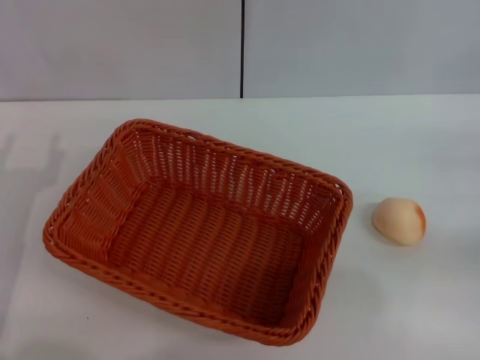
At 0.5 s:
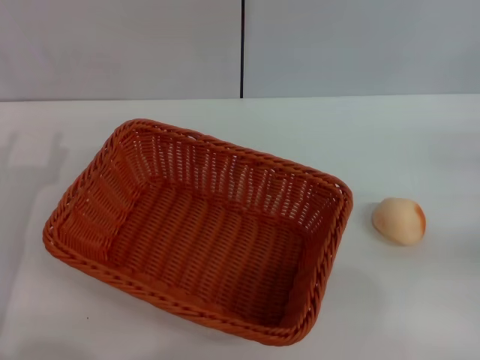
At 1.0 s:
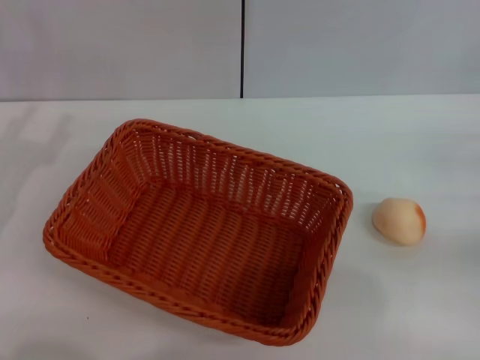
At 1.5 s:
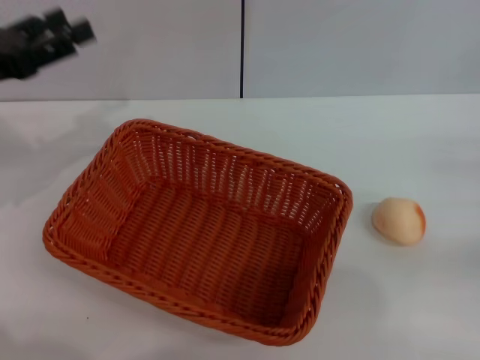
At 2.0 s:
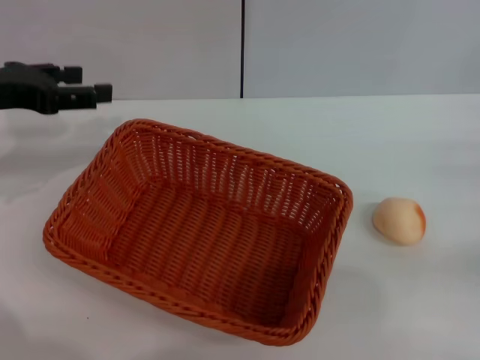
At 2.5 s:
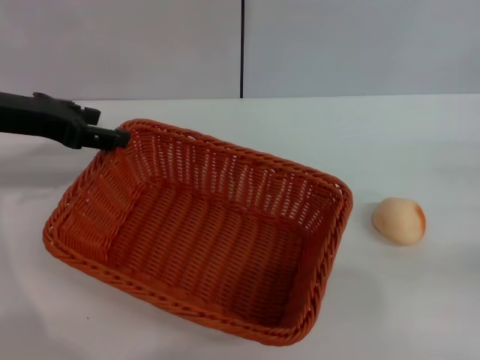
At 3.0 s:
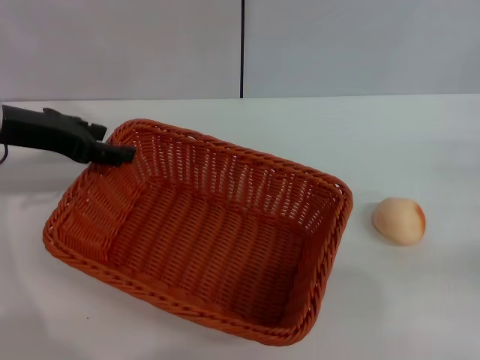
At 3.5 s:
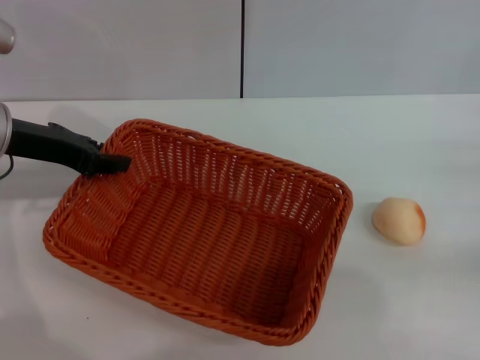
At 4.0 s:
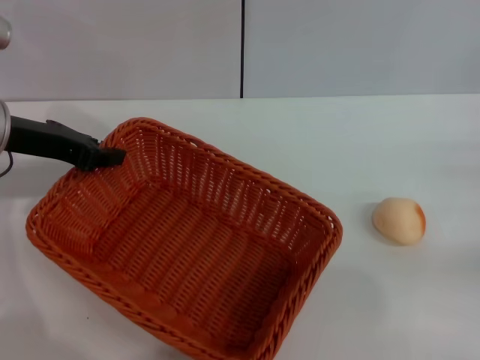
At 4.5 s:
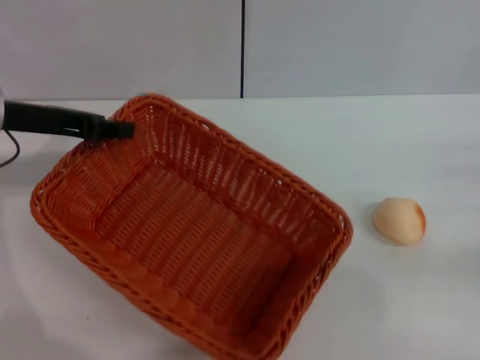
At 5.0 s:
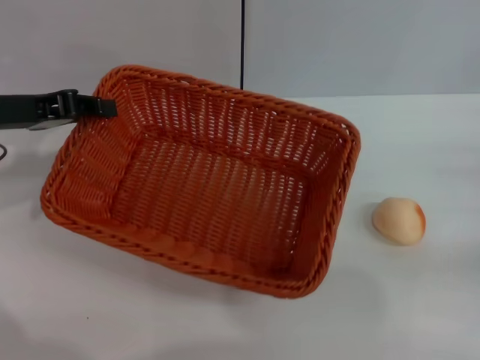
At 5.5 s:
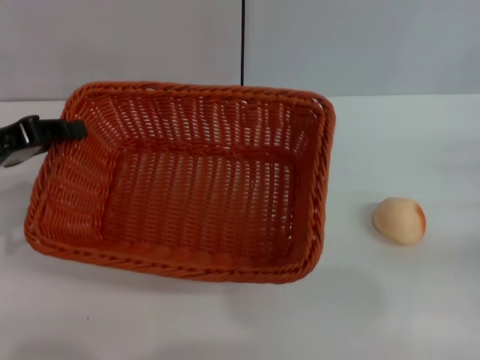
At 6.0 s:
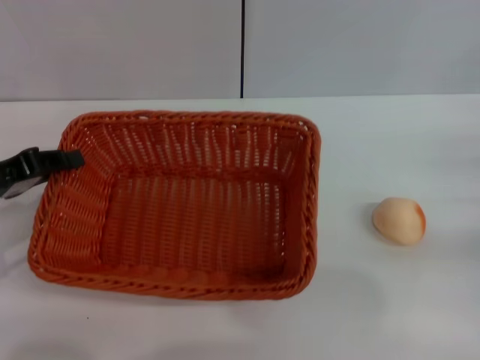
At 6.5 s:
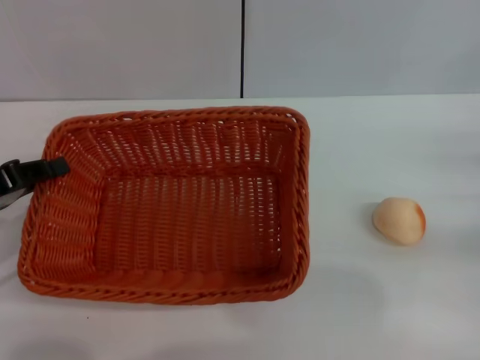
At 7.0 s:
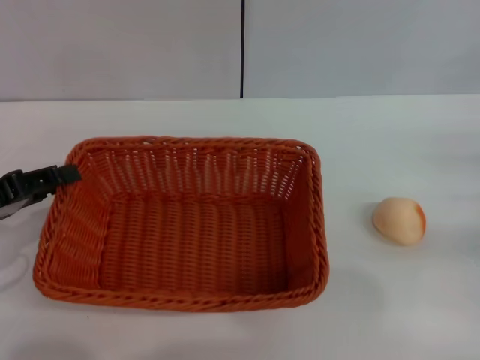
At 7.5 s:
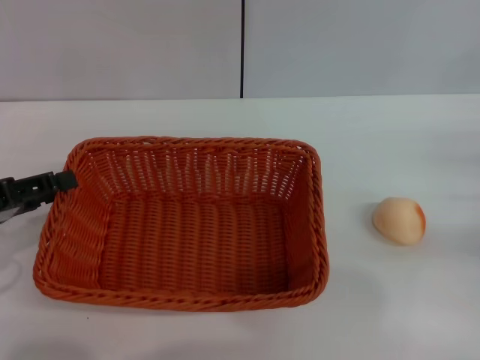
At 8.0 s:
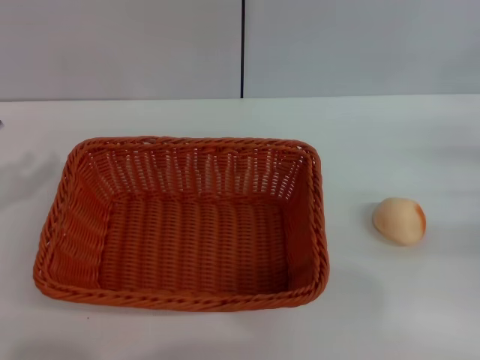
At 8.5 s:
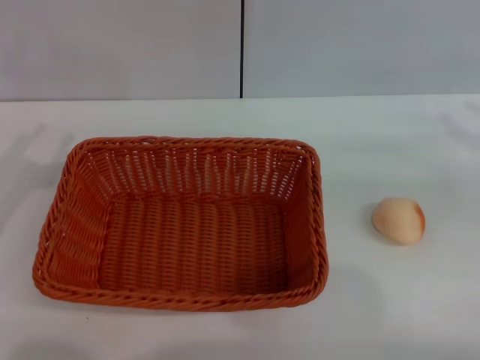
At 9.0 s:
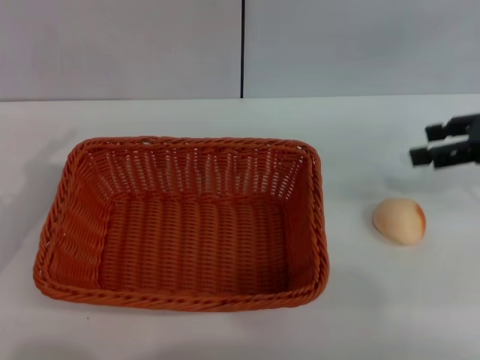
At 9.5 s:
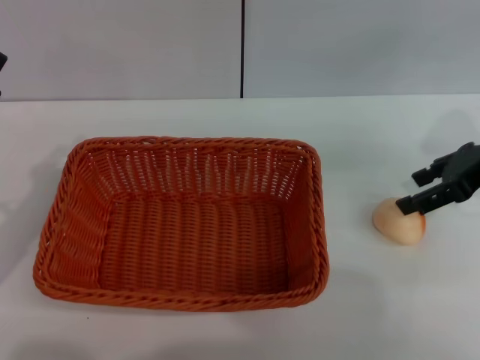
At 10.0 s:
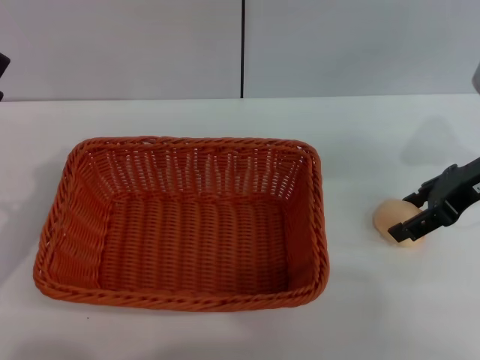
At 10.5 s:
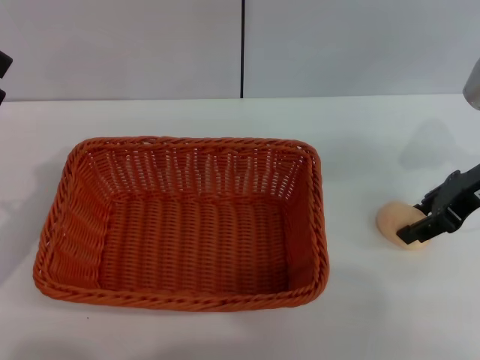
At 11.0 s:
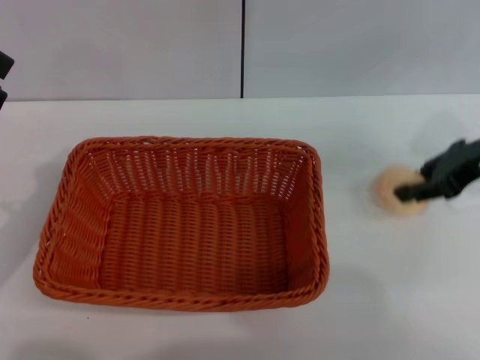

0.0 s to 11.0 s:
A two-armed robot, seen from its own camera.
Step, 0.0 to 7.5 s: Move the basket to the center of view with the left gripper.
0.0 to 2.0 s: The left gripper is displaced forward and upward by some 15 cm.
2.0 to 3.5 s: The left gripper shifts by about 5 cm, and closes its fingers.
3.5 to 5.5 s: The left gripper goes roughly 5 cm backward, and closes up.
5.5 to 7.5 s: The left gripper is displaced backward by about 5 cm, and opens up.
7.5 to 9.0 s: The right gripper heads upward and forward, covering approximately 15 cm.
9.0 to 11.0 s: The right gripper closes.

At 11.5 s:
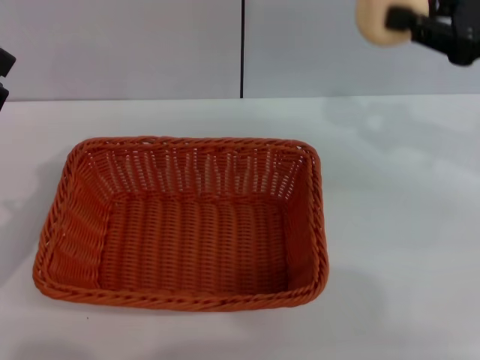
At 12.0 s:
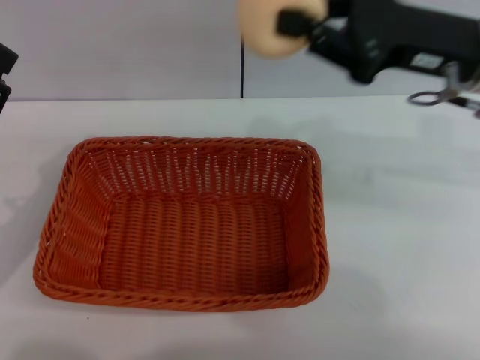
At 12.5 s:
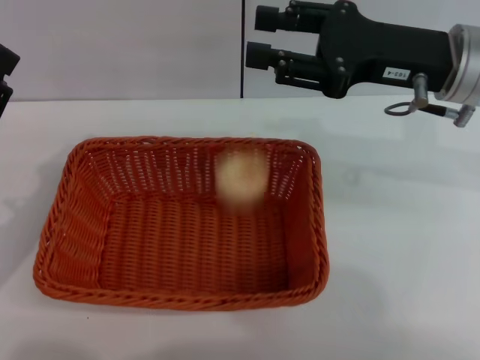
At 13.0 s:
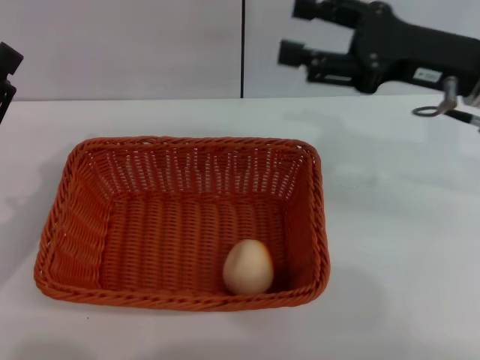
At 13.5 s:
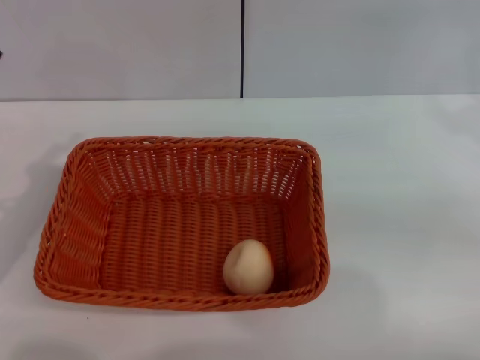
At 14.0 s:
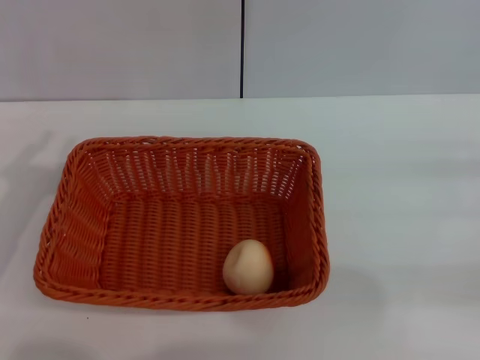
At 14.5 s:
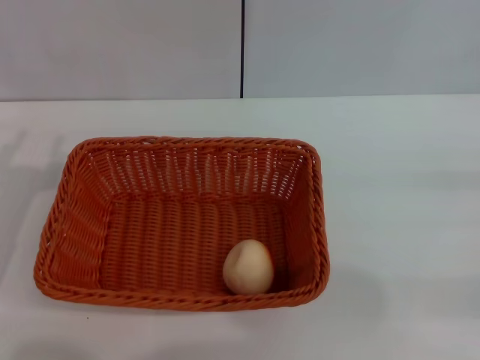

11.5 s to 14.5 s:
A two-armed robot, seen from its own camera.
Step, 11.5 to 12.5 s: Place the egg yolk pastry into the basket with the right gripper.
11.5 to 13.0 s: The right gripper travels to the left by approximately 5 cm, and opens.
13.0 to 14.5 s: The right gripper goes approximately 25 cm to the right, backward and downward.

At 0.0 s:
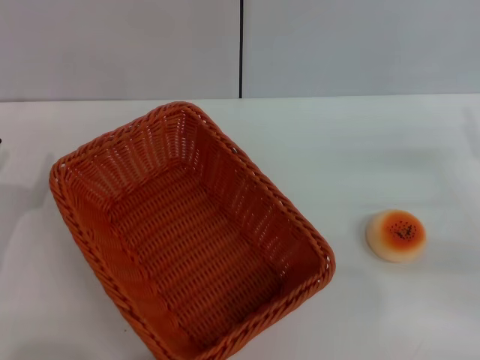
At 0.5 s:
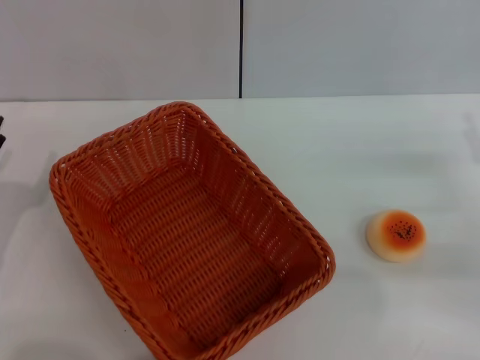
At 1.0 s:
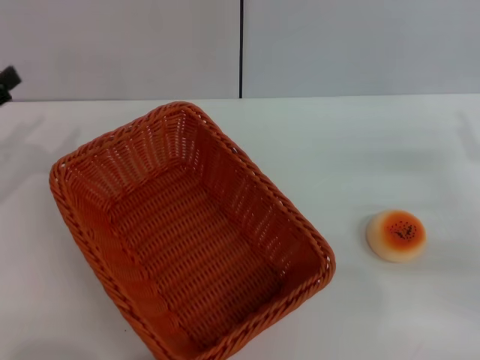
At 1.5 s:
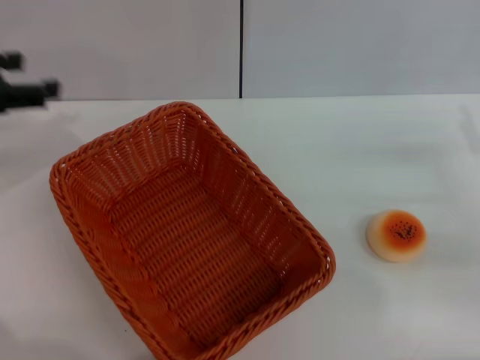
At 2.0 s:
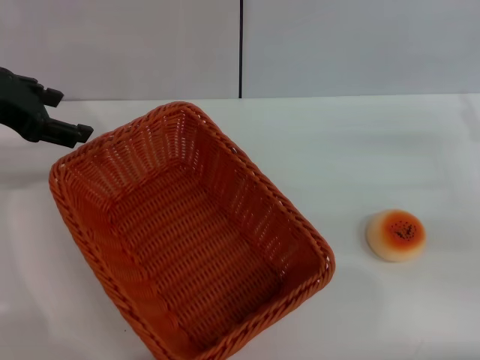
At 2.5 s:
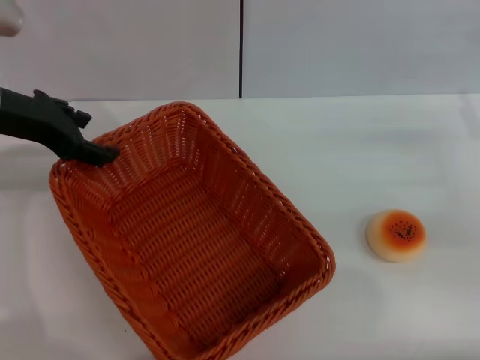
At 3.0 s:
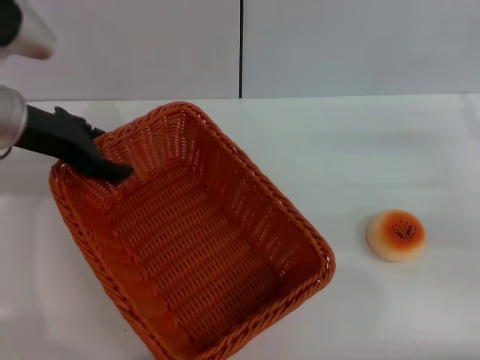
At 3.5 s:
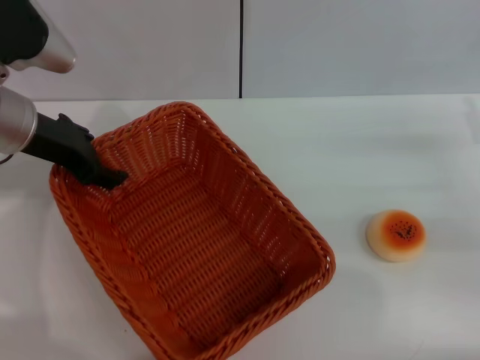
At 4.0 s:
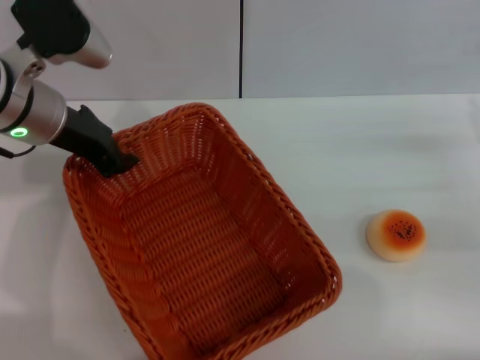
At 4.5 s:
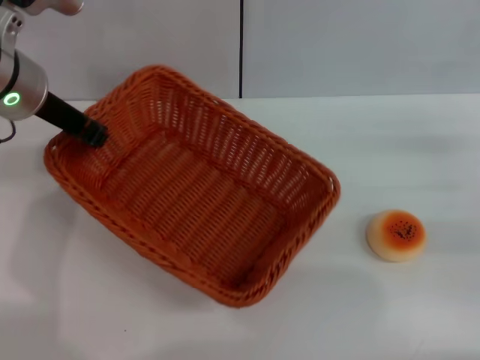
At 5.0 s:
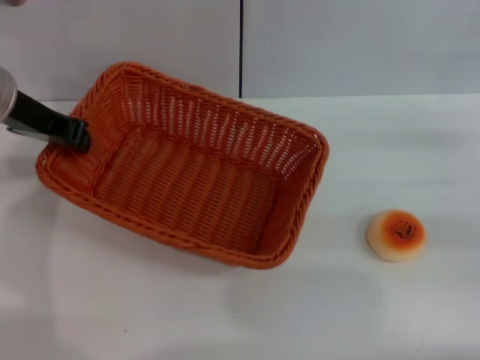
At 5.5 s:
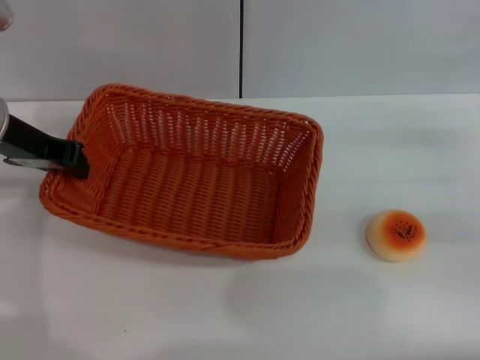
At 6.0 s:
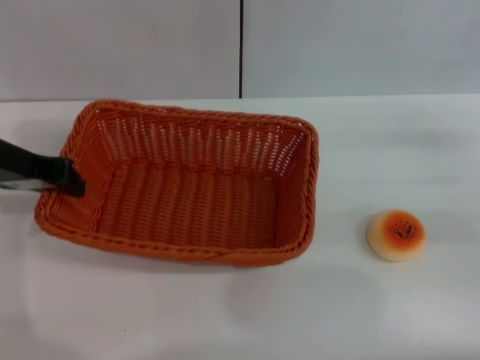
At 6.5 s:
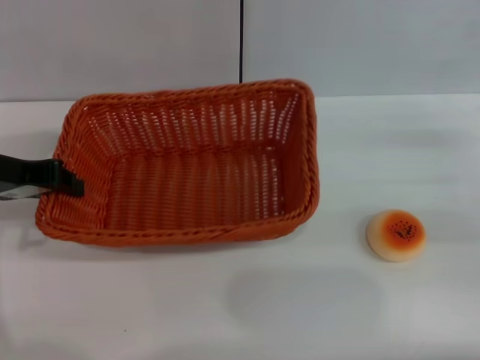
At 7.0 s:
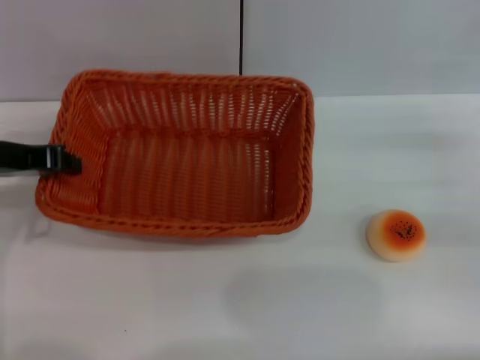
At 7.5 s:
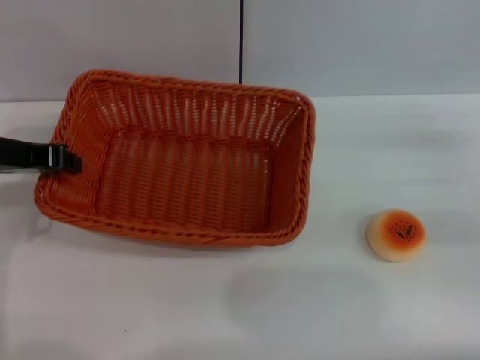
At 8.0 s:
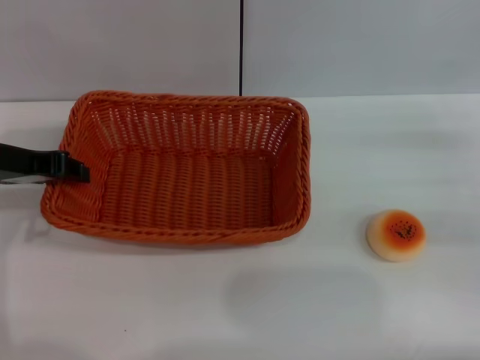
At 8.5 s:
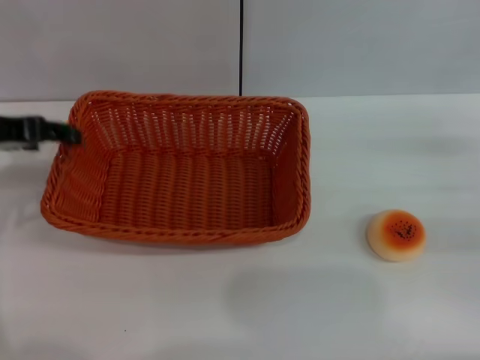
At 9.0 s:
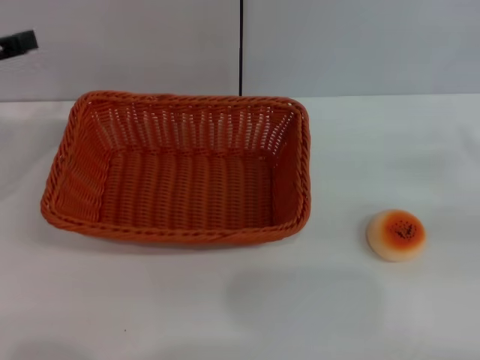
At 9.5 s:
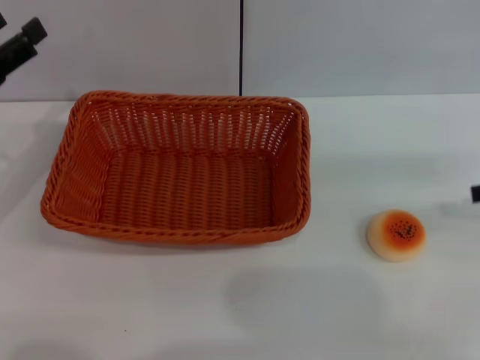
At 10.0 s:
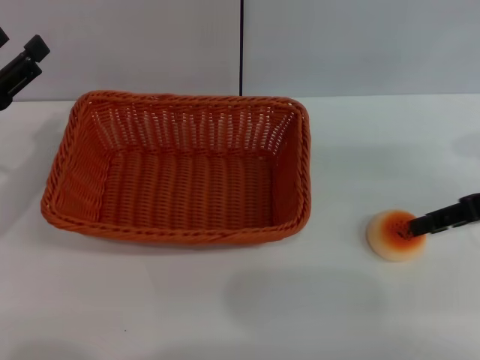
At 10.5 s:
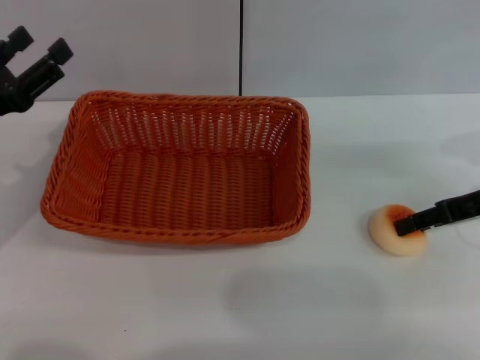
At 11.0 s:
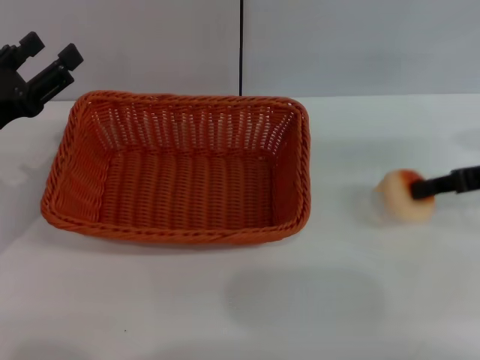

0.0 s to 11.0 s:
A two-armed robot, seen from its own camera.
Step, 0.0 to 8.5 s: Move the basket to the center of view with the left gripper.
Step, 9.0 to 11.0 s: Pick up the egg yolk pastry with the right gripper.
0.0 to 2.0 s: The left gripper shifts roughly 25 cm upward and forward.
2.0 to 3.5 s: The left gripper travels downward by some 5 cm.
3.5 to 5.5 s: The left gripper closes up.
5.5 to 7.5 s: There are only small adjustments of the grippers.
7.5 to 9.0 s: The left gripper heads to the left, covering some 5 cm, and opens its fingers.
9.0 to 11.0 s: The right gripper travels to the left and forward by roughly 10 cm, and closes up. The left gripper travels downward by some 10 cm.
